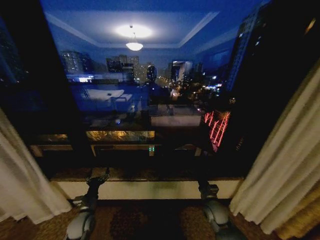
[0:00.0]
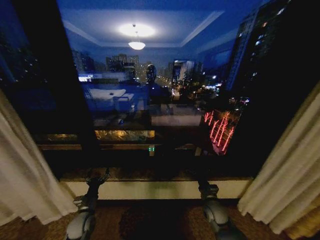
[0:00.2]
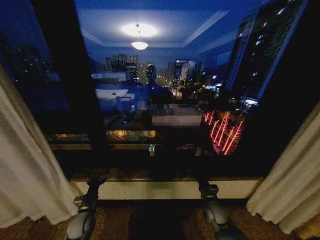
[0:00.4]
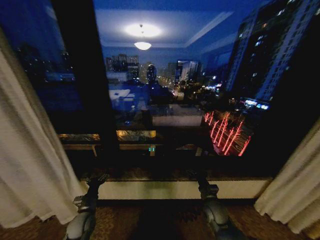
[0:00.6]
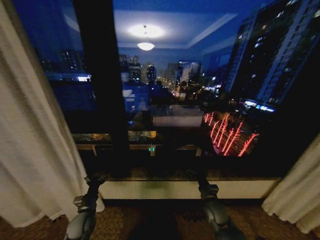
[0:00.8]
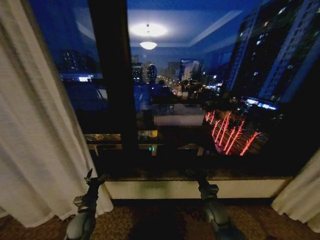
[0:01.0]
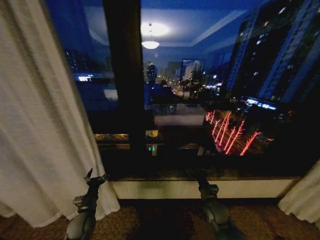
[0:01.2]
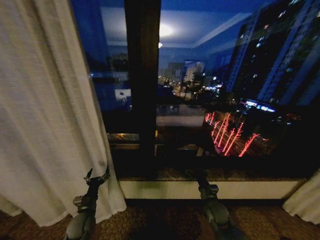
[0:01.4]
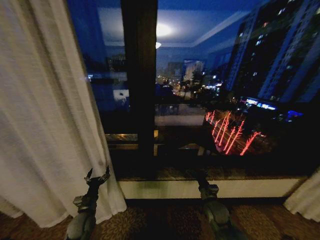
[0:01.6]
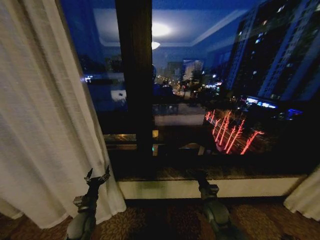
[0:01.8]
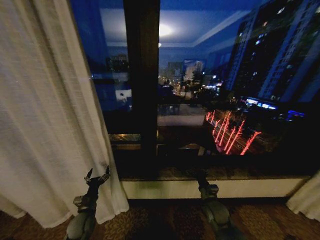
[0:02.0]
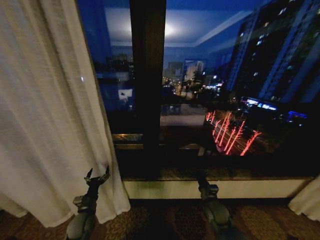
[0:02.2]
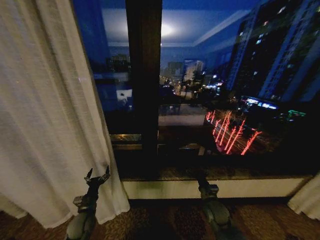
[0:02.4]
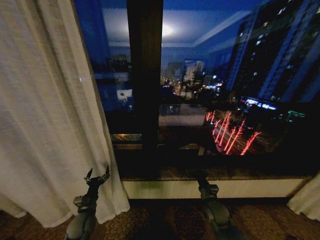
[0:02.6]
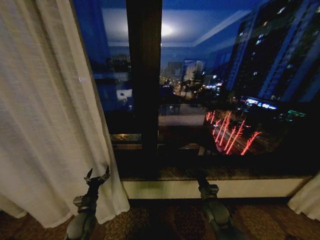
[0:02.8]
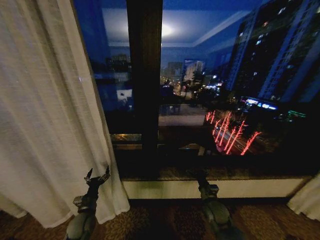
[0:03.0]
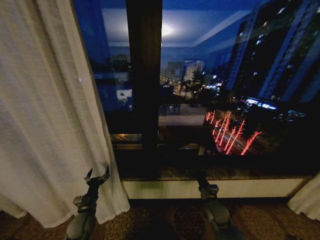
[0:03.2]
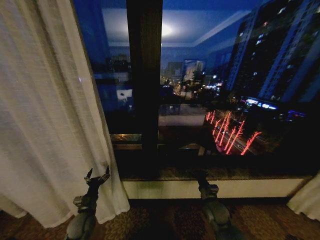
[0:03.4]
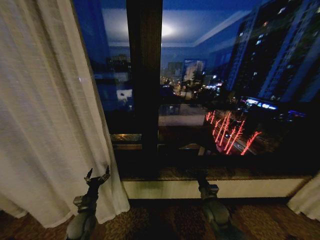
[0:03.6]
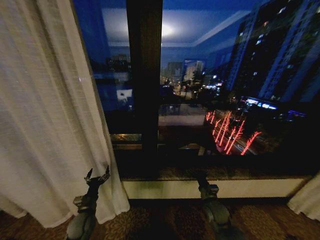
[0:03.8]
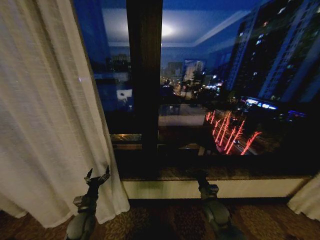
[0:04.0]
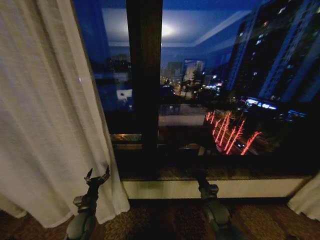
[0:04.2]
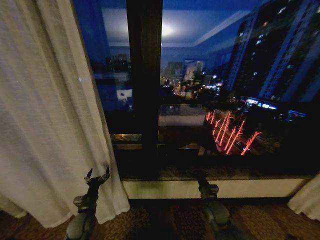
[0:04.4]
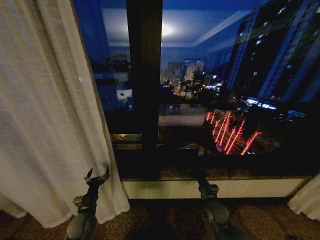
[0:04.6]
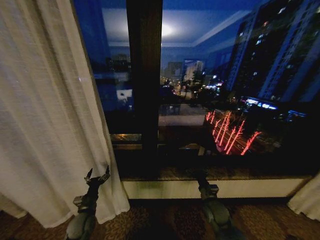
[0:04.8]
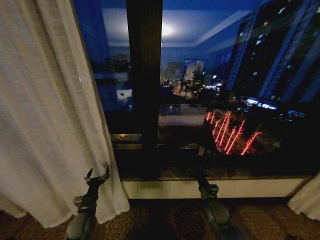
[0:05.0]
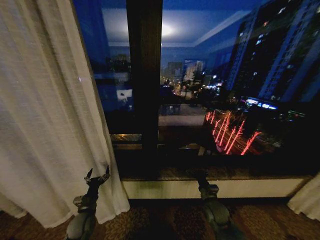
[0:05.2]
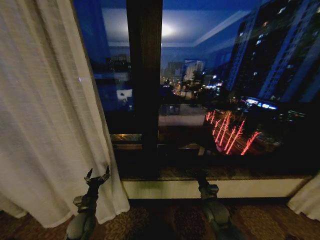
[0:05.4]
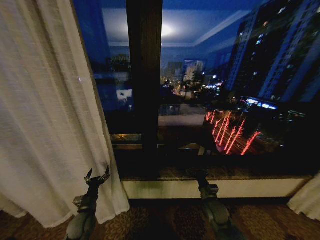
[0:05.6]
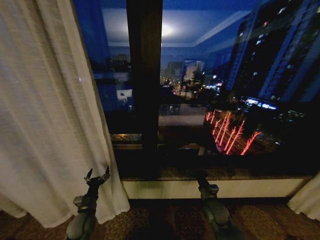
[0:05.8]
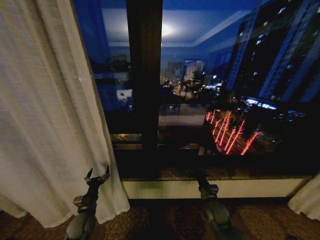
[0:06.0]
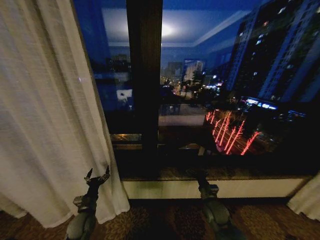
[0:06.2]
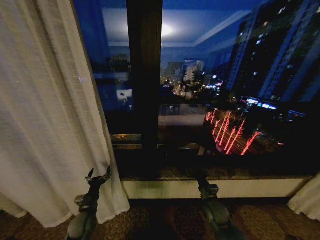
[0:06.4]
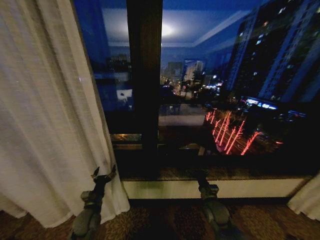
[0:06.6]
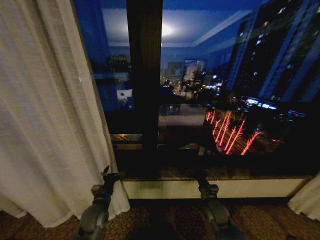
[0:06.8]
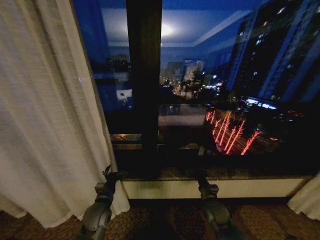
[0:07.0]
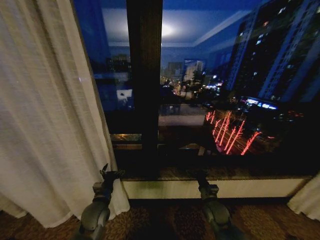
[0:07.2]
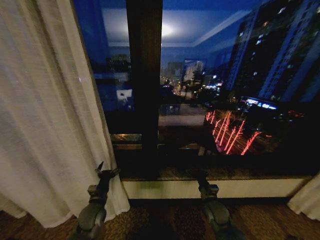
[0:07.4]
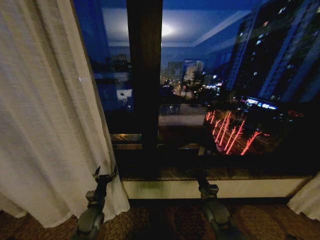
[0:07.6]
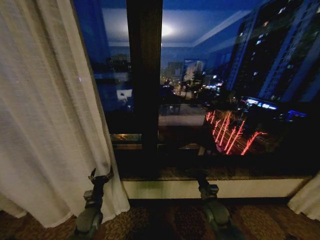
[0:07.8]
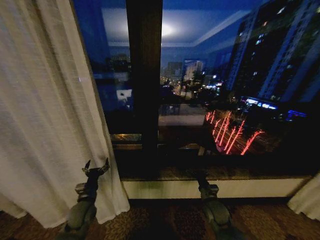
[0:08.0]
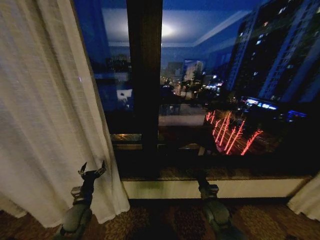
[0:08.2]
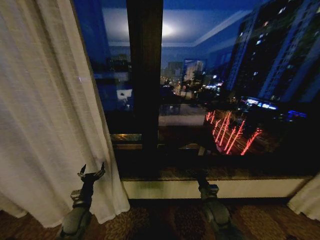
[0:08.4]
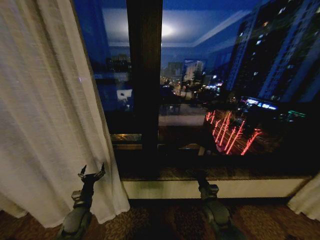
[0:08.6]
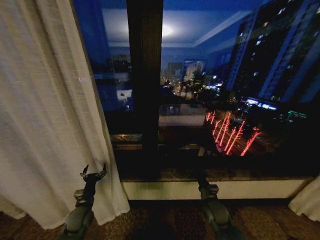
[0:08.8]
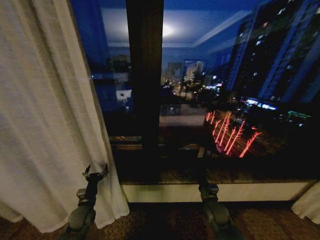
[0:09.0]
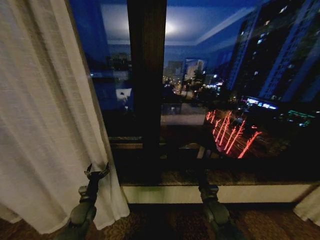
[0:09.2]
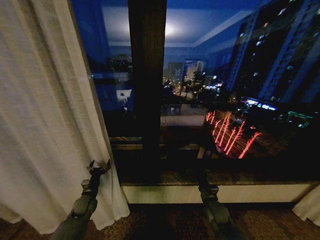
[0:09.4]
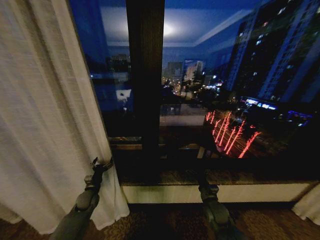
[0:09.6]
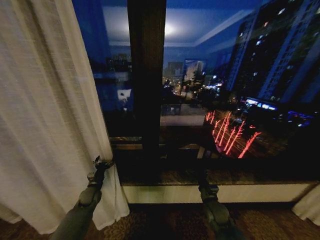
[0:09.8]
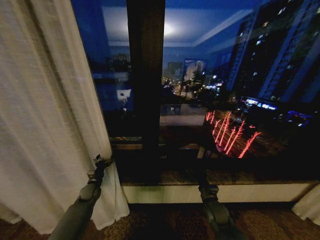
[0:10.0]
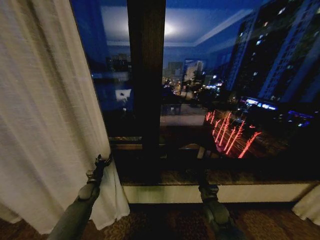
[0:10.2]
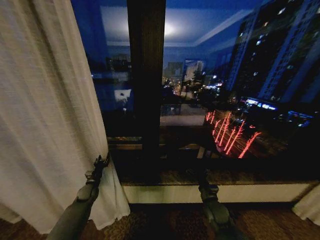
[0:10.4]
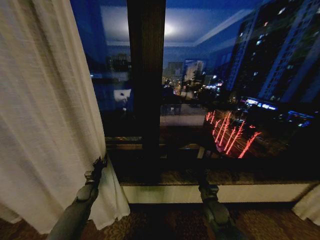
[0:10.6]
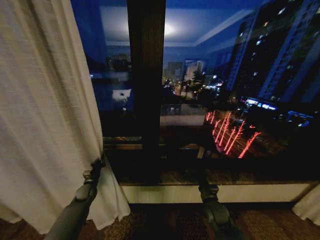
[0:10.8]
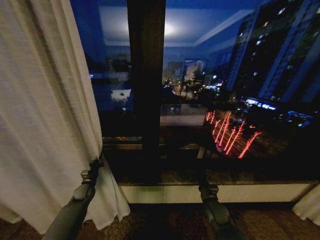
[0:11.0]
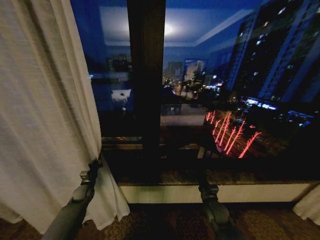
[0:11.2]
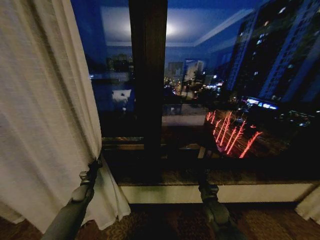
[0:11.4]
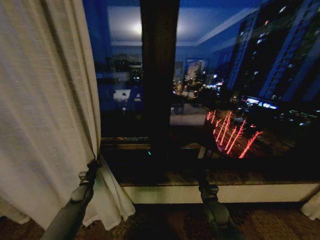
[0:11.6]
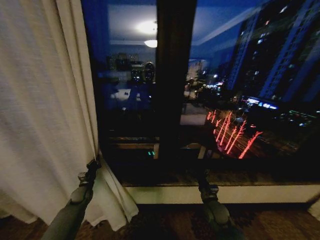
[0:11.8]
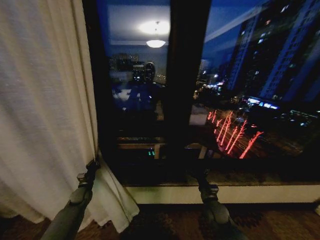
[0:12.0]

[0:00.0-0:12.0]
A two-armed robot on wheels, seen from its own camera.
Task of the whole recording: Open the curtains by pulling them apart, changing their state from closed to fully open.
0:01.6 to 0:06.0: Both grippers stay about where they are.
0:09.0 to 0:10.4: The left gripper goes about 10 cm forward, and closes.
0:10.4 to 0:12.0: The left gripper closes.

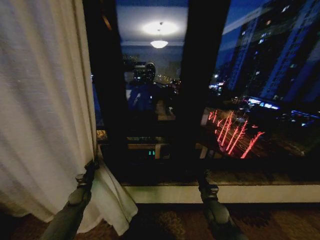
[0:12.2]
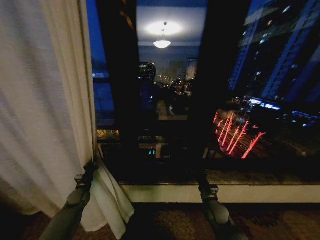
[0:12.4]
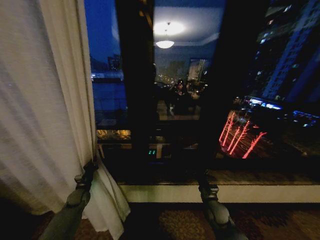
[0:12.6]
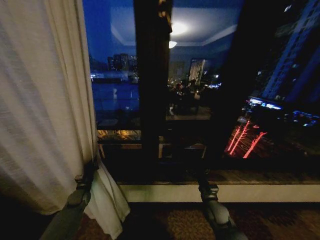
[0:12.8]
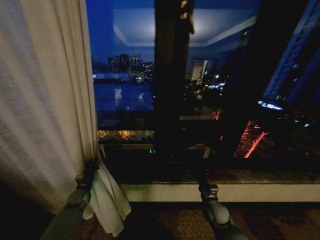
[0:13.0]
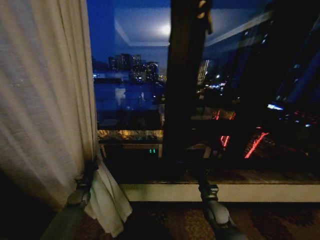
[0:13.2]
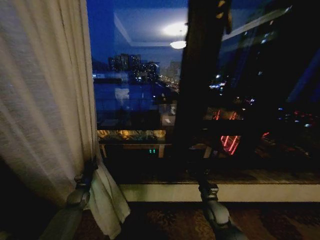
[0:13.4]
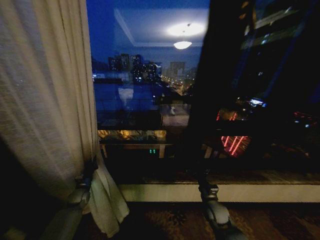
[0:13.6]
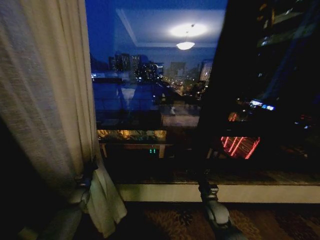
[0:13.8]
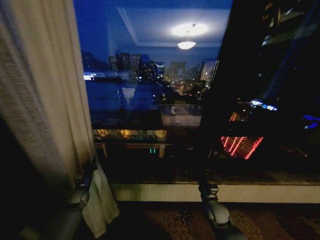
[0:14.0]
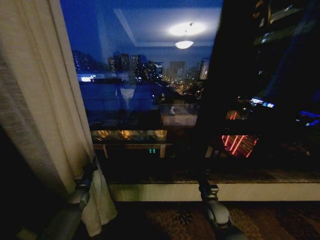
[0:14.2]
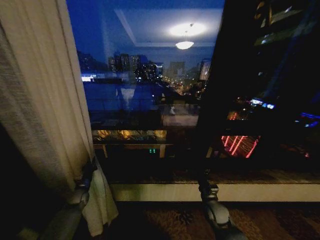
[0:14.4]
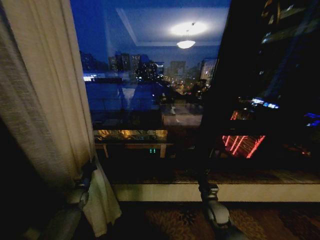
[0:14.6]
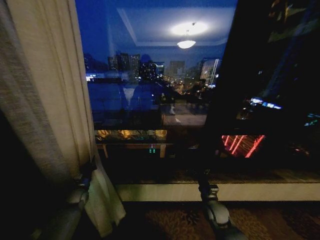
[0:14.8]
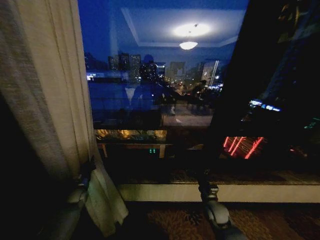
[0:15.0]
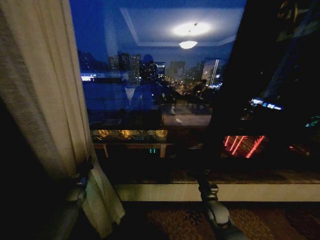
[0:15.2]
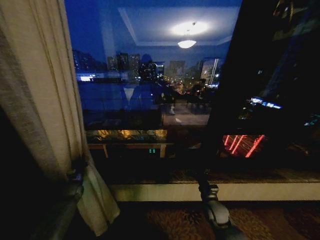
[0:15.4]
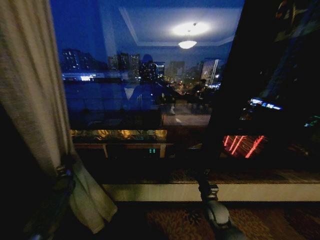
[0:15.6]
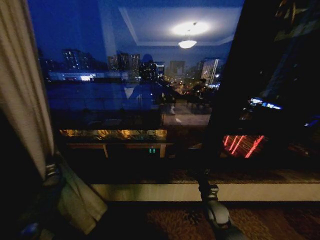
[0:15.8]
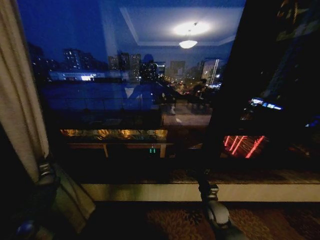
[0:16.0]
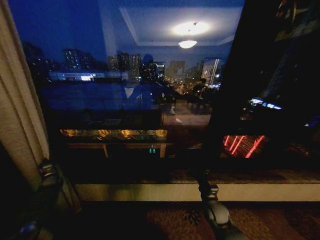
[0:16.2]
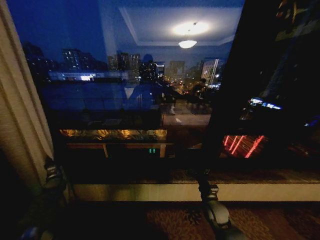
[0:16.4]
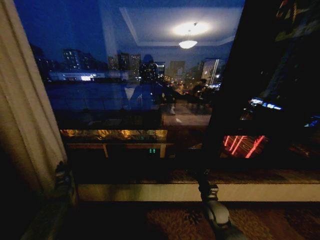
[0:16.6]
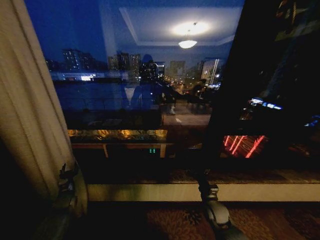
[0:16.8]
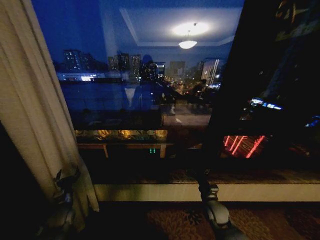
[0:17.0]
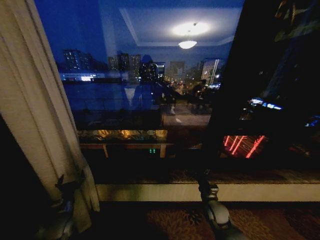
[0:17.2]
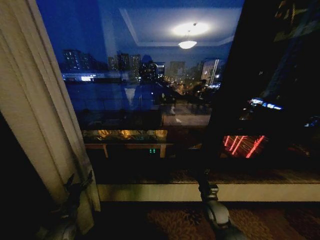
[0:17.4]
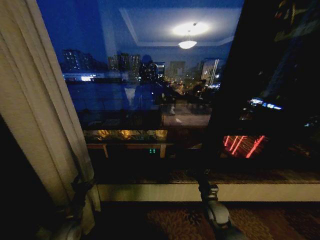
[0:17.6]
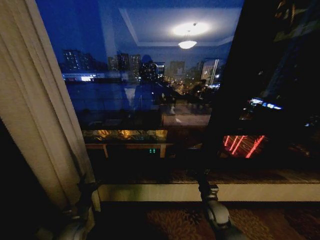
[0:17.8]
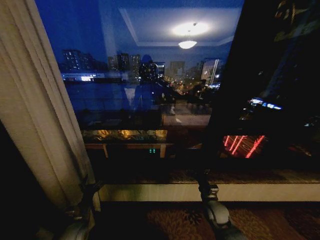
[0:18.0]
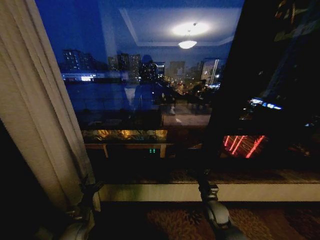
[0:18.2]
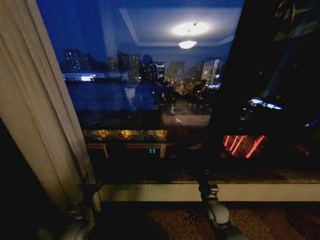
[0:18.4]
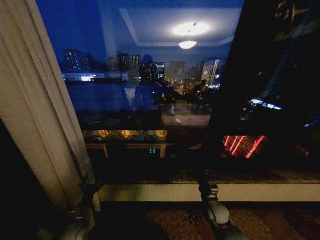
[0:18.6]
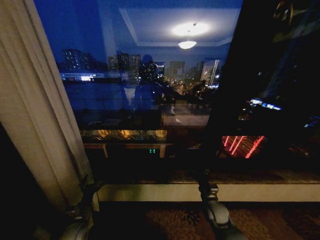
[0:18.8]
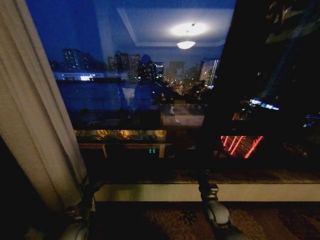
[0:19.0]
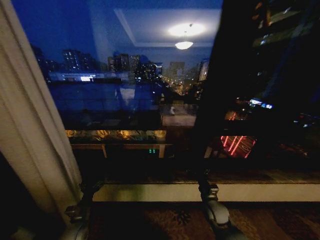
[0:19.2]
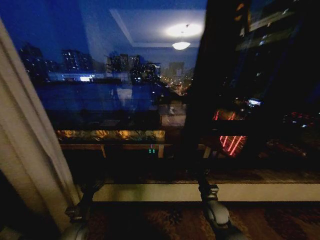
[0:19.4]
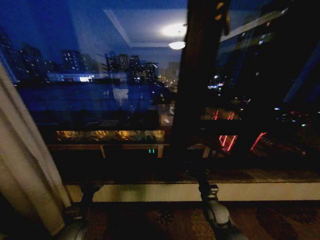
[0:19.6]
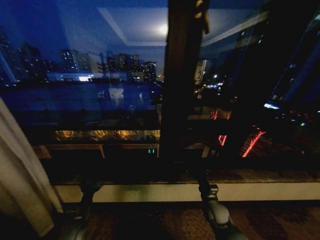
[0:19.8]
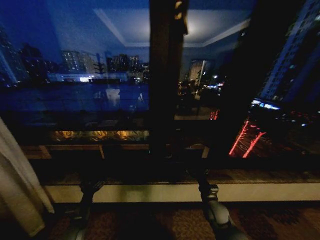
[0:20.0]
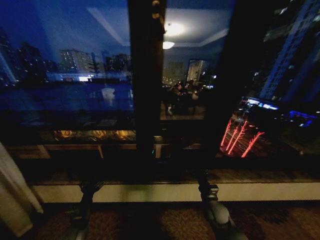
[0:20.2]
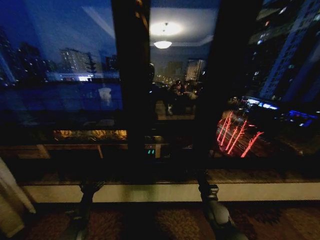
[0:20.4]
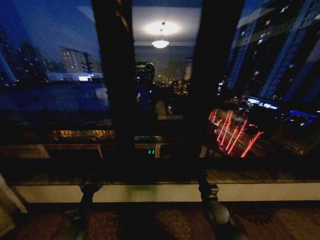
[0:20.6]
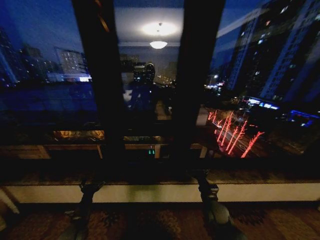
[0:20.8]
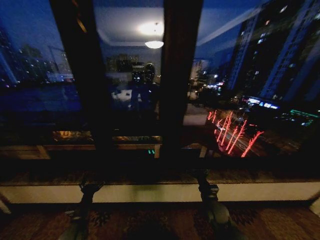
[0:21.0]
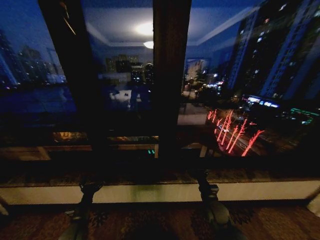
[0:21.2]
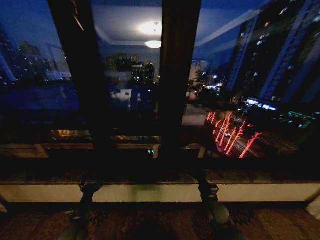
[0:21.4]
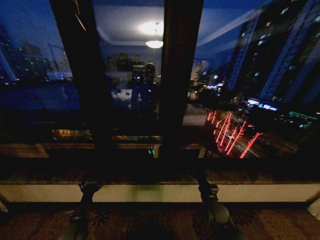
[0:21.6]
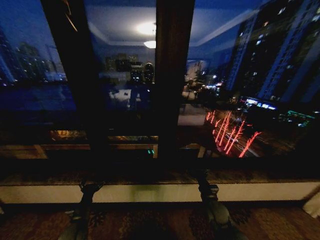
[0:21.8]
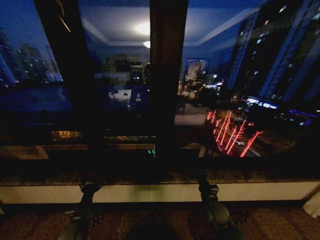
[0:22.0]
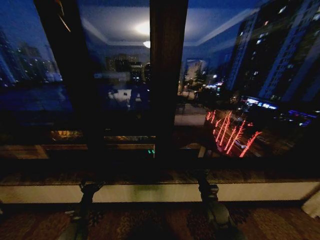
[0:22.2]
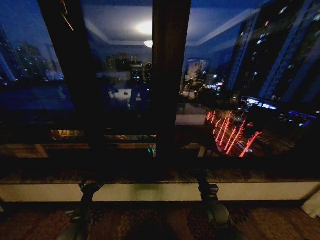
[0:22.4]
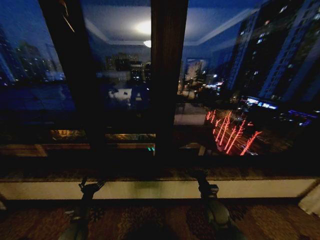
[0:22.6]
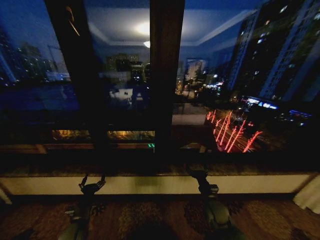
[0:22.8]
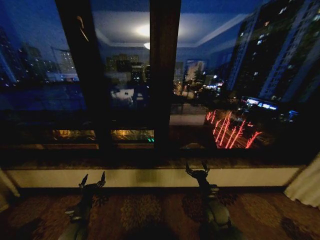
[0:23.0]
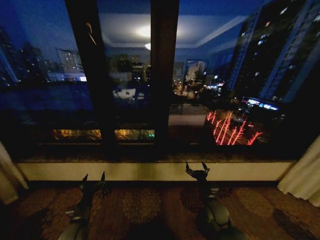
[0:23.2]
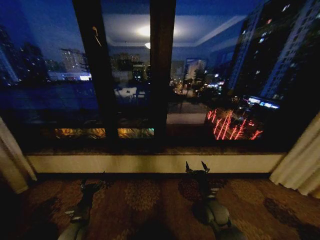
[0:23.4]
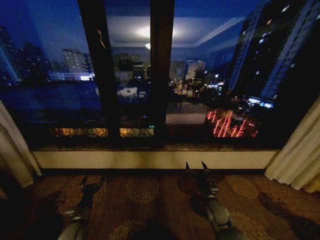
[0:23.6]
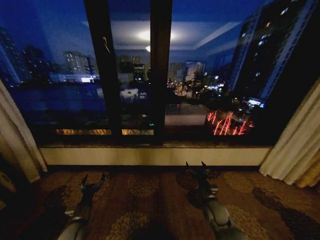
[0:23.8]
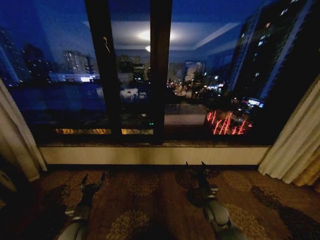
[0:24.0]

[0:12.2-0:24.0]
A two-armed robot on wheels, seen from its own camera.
Task of the whole recording: Open the curtains by pulling them apart, changing their state from closed to fully open.
0:13.6 to 0:15.2: The grippers move only a little.
0:15.2 to 0:16.6: The left gripper heads to the left, covering some 10 cm.
0:16.6 to 0:18.2: The left gripper heads backward and to the right, covering some 25 cm, and opens its fingers.
0:21.0 to 0:22.6: Both grippers stay put.
